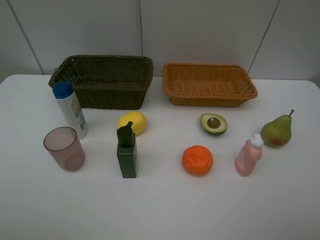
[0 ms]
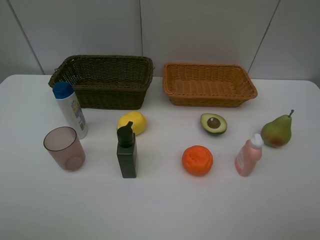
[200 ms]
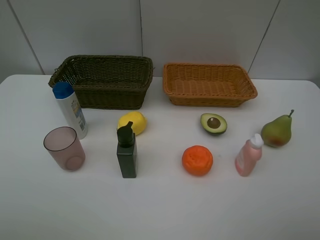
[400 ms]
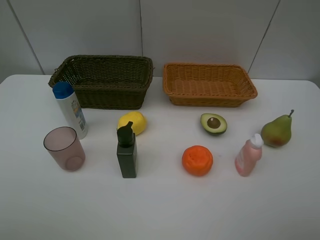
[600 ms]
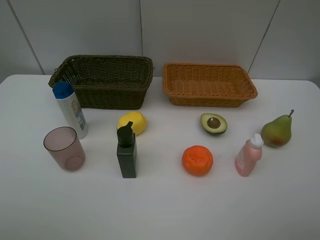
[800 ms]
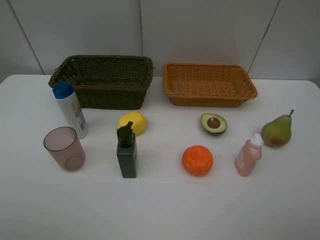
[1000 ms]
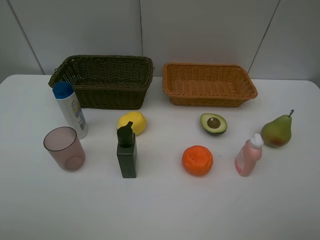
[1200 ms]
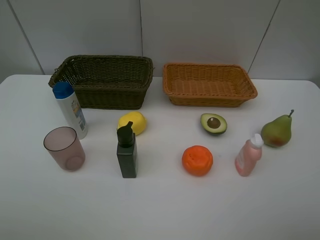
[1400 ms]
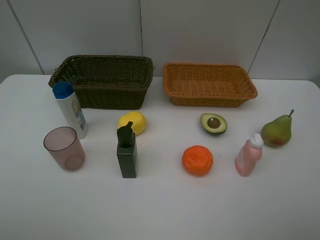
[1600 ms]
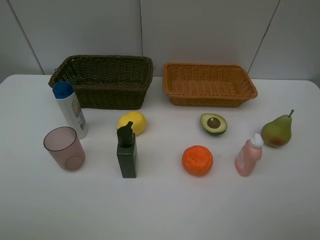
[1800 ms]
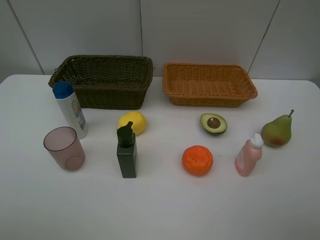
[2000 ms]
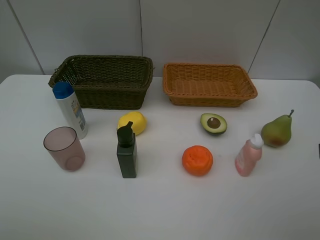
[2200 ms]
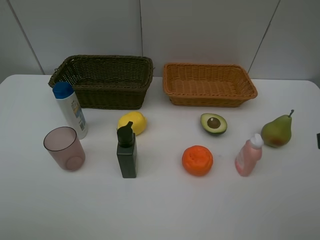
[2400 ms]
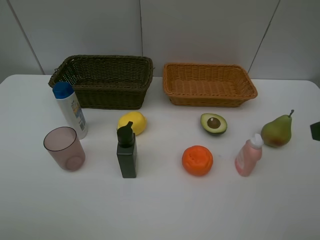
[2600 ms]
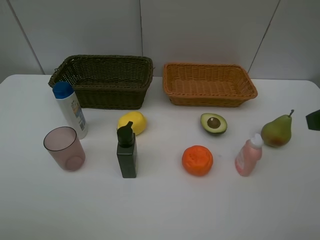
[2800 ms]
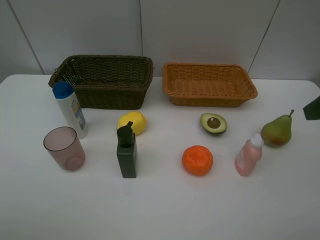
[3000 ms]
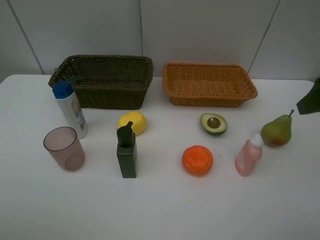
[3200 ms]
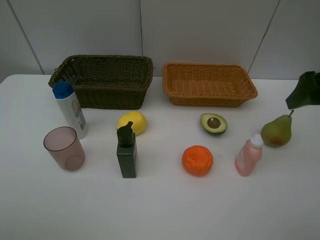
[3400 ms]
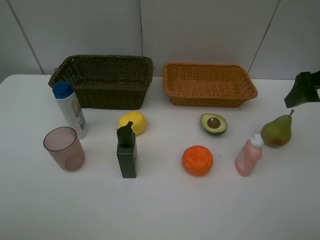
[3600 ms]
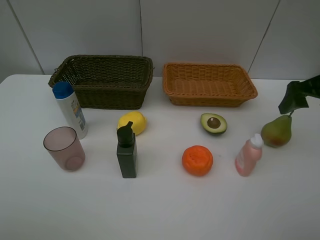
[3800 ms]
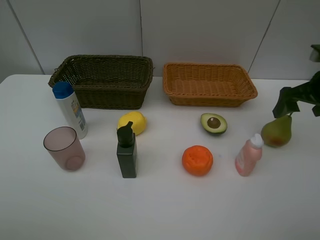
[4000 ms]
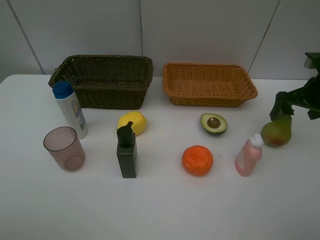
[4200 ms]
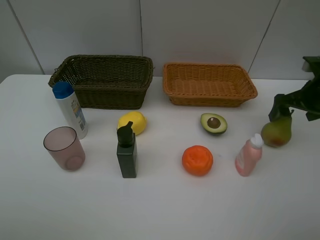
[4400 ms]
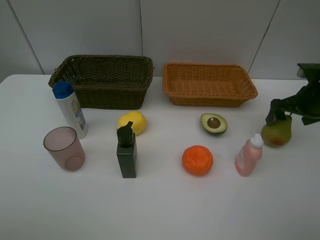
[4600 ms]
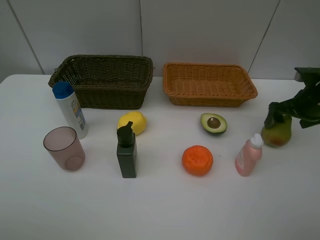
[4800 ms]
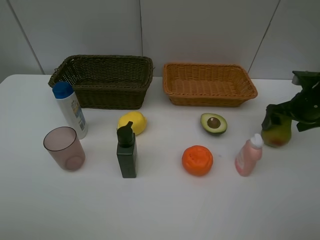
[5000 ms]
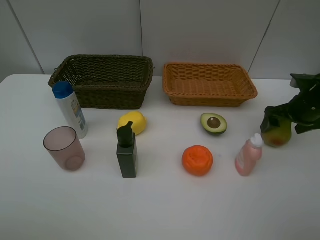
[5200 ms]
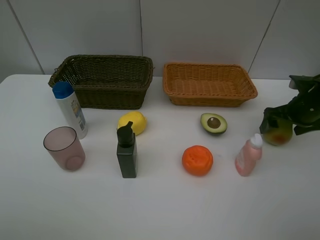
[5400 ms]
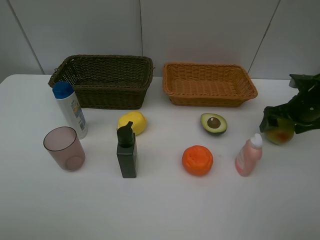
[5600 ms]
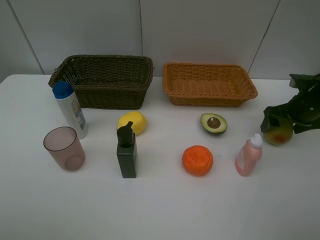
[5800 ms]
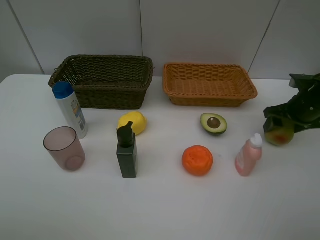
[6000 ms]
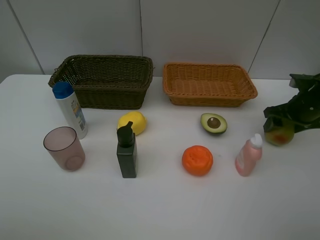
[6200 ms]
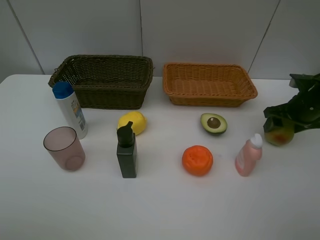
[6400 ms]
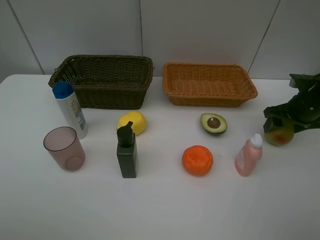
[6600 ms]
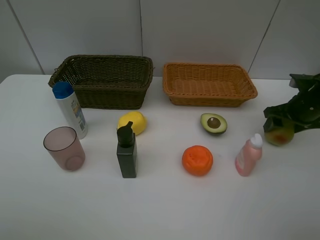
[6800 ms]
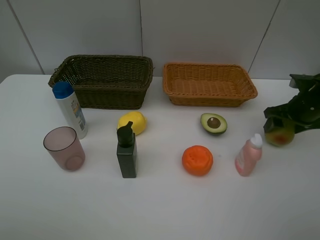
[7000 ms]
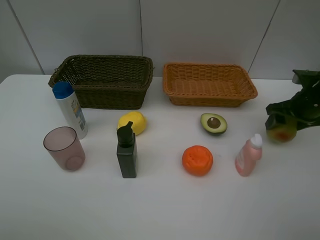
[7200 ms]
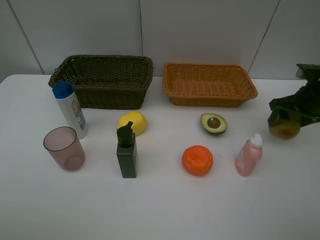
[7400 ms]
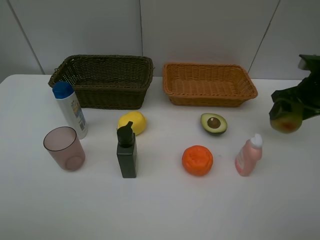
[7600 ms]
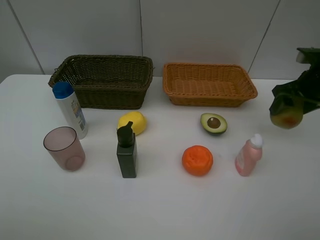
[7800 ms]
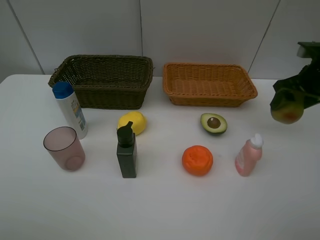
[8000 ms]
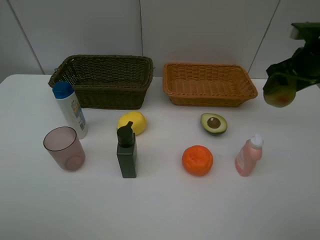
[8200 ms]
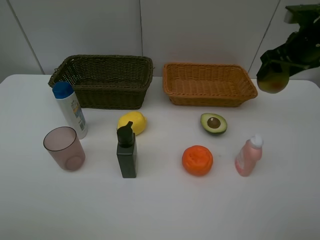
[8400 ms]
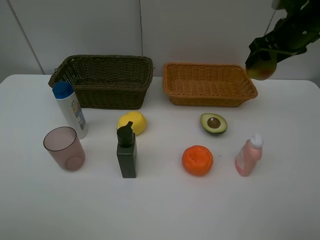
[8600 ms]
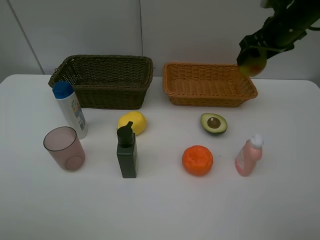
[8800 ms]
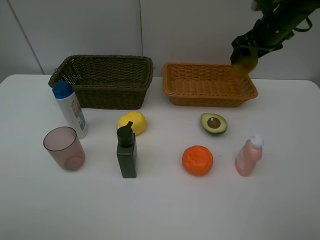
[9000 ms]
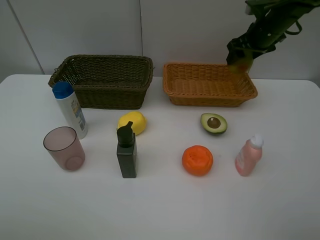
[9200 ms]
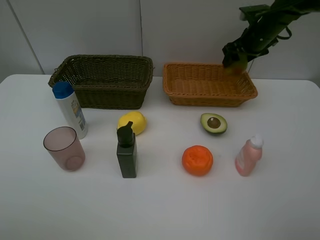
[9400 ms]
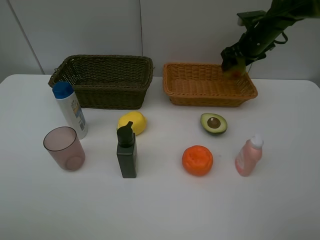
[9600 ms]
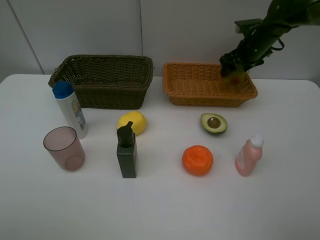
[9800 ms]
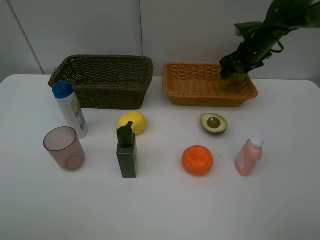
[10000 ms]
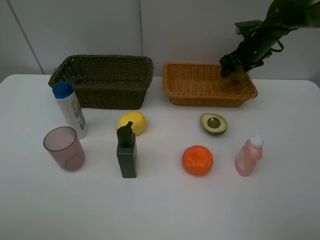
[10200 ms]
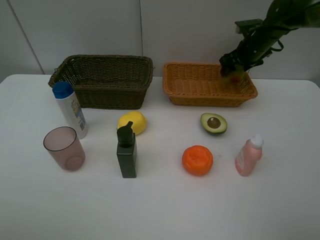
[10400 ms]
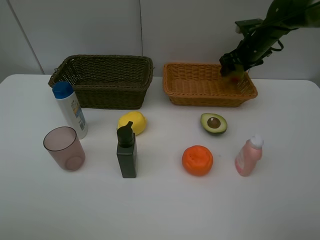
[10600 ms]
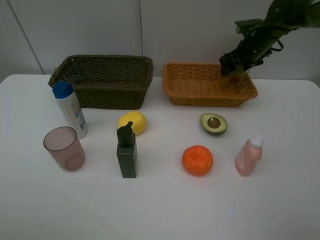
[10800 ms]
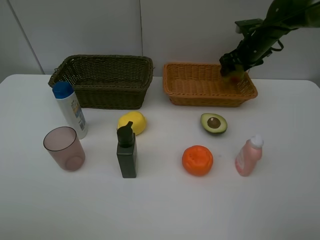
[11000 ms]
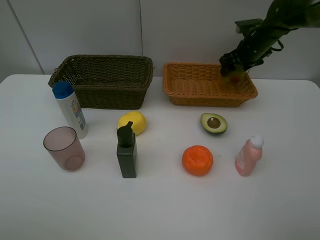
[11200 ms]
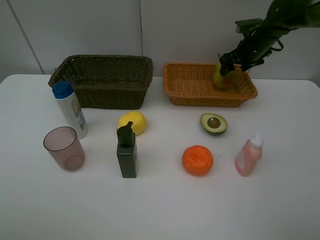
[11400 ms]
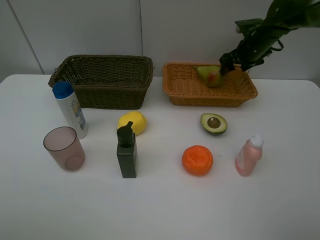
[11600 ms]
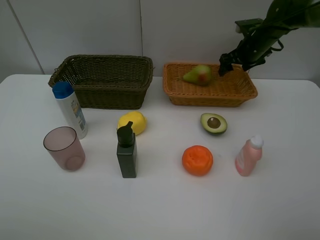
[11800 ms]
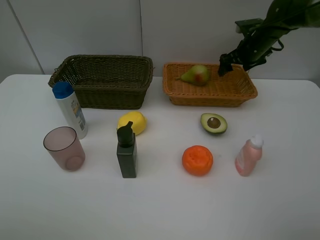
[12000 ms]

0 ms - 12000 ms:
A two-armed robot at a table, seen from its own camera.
Task of the whole recording: Place multiple objects separately in different baskets.
Step, 0 ms - 7200 ms: Pick up the pear with right gripper.
Step, 7400 ms - 11600 ms: Place the pear in the light basket with right gripper.
3000 ms - 4400 ms: The right gripper travels forward and downward by about 20 cm.
4400 ms - 6000 ms: The right gripper closes up.
6000 ms - 7600 ms: The right gripper heads upward, covering some 5 cm.
7600 ms - 9000 ms: The right gripper goes about 15 cm forward, to the left and upward.
9000 ms - 10400 ms: The right gripper is displaced downward and forward by approximately 10 cm.
10400 ms - 12000 ms: Both grippers stay about where they are.

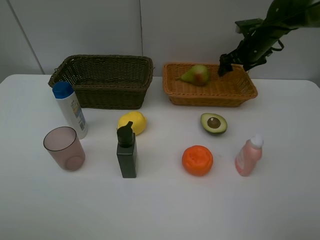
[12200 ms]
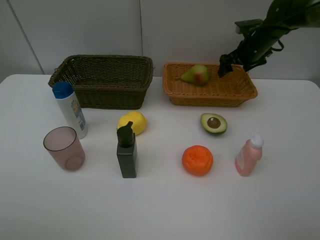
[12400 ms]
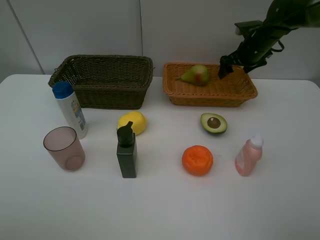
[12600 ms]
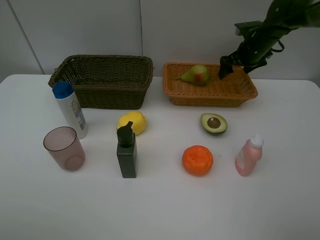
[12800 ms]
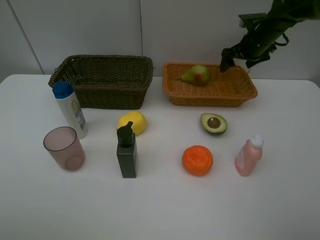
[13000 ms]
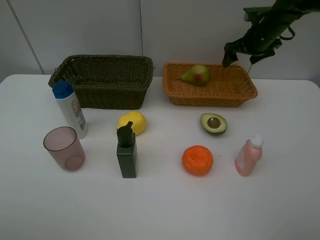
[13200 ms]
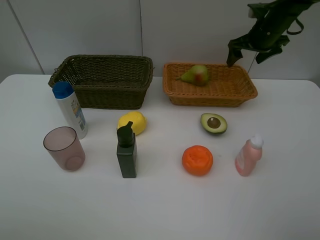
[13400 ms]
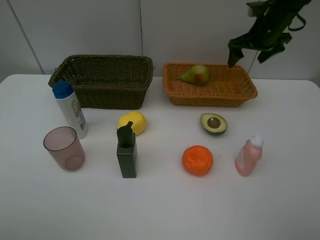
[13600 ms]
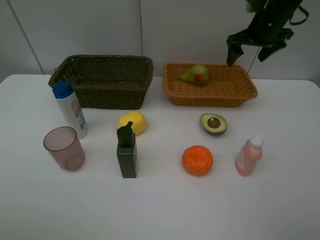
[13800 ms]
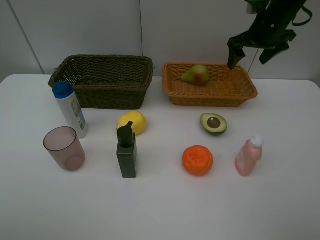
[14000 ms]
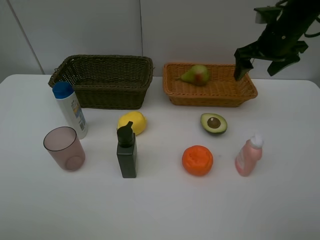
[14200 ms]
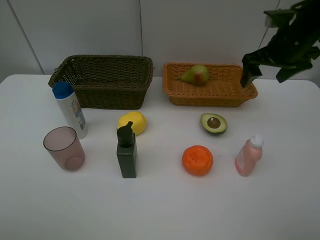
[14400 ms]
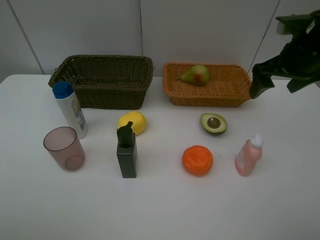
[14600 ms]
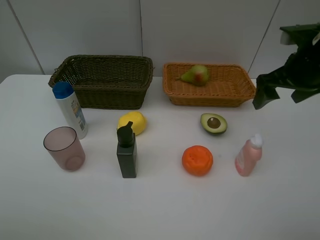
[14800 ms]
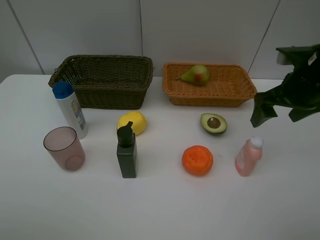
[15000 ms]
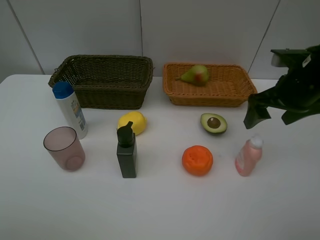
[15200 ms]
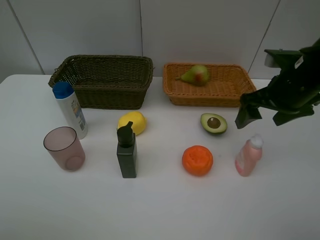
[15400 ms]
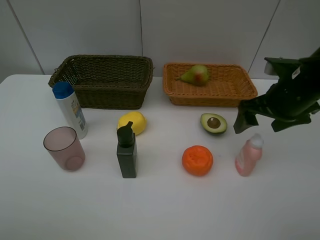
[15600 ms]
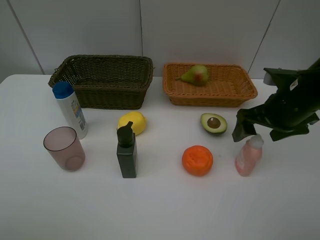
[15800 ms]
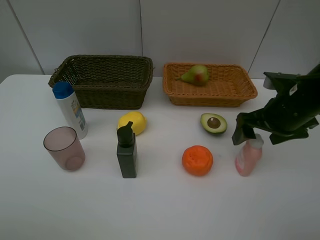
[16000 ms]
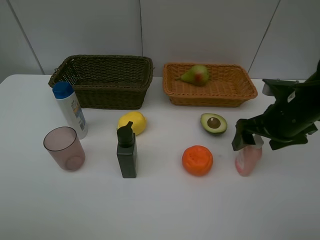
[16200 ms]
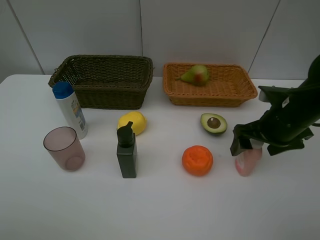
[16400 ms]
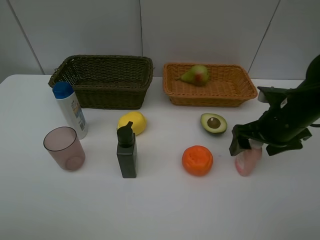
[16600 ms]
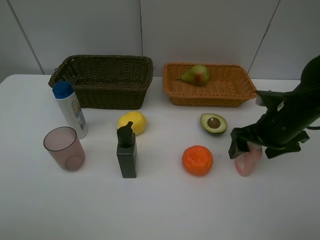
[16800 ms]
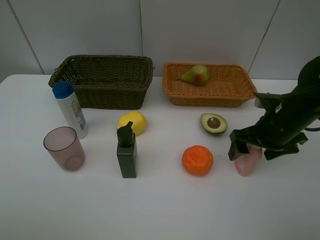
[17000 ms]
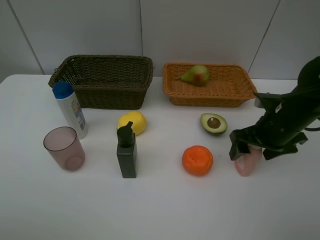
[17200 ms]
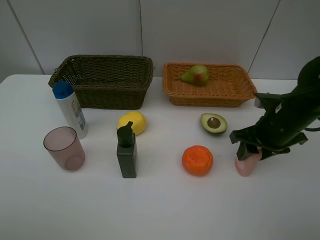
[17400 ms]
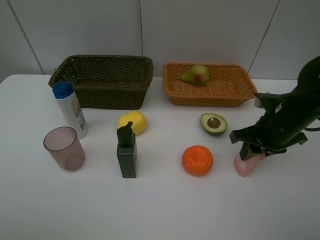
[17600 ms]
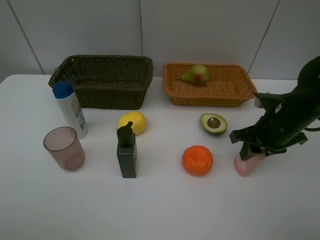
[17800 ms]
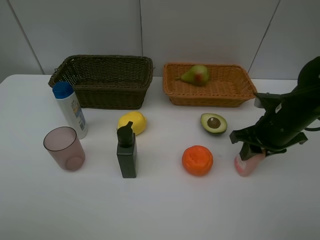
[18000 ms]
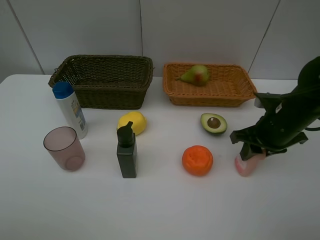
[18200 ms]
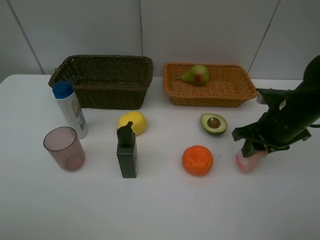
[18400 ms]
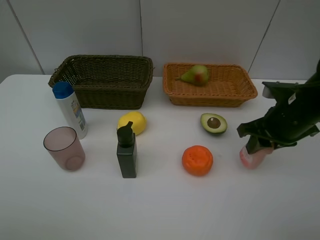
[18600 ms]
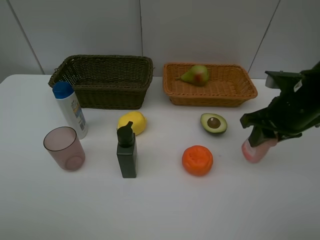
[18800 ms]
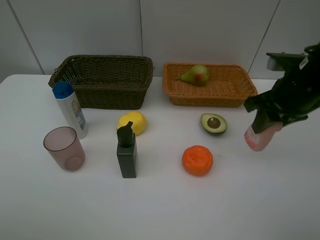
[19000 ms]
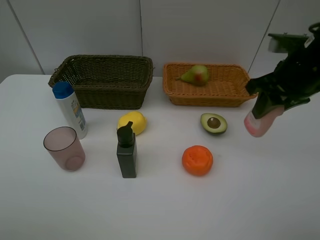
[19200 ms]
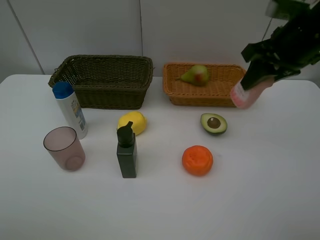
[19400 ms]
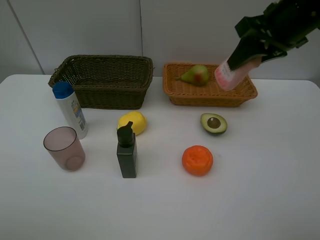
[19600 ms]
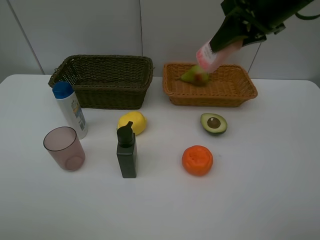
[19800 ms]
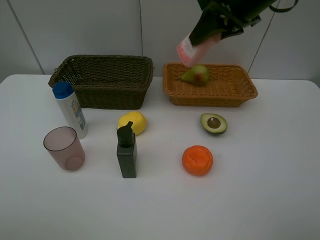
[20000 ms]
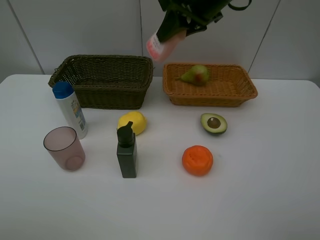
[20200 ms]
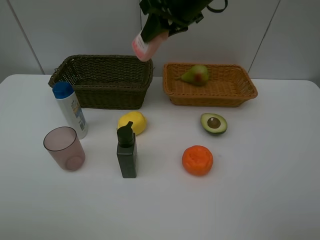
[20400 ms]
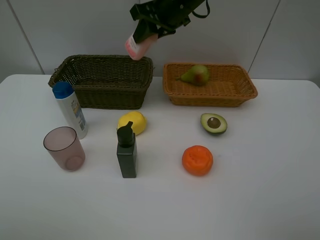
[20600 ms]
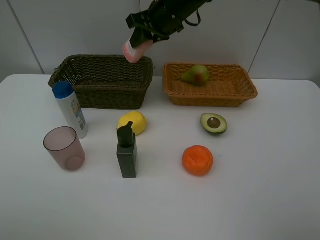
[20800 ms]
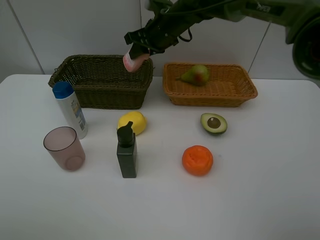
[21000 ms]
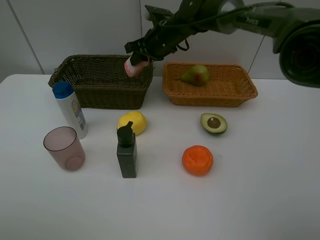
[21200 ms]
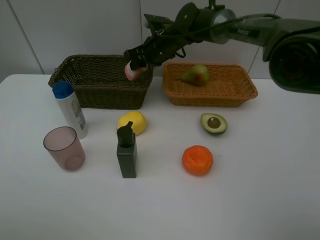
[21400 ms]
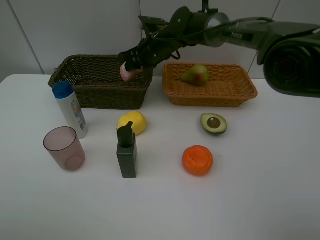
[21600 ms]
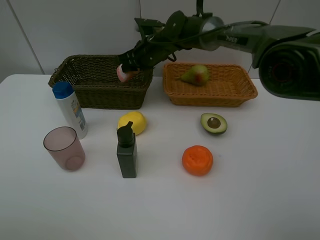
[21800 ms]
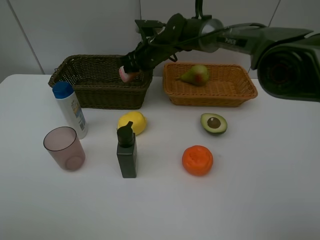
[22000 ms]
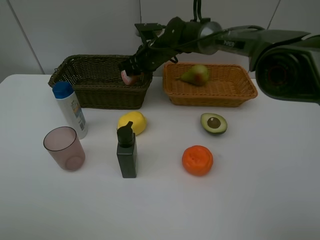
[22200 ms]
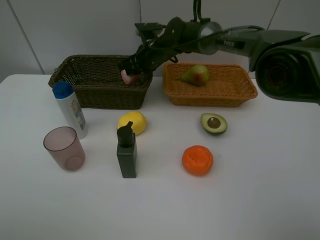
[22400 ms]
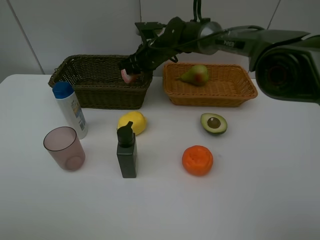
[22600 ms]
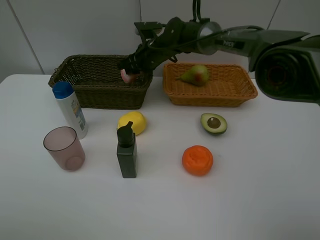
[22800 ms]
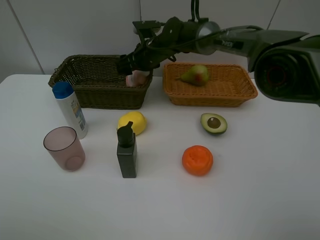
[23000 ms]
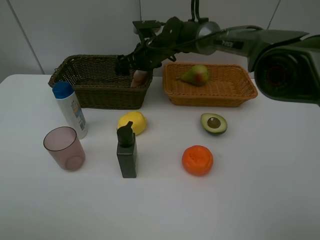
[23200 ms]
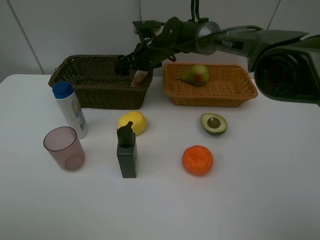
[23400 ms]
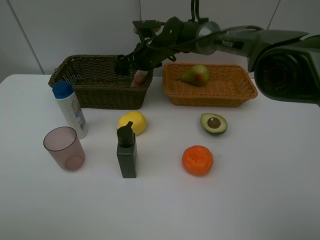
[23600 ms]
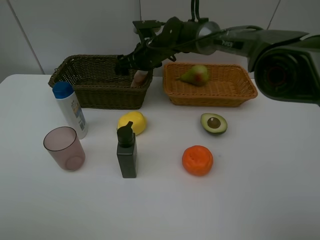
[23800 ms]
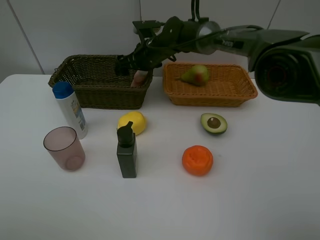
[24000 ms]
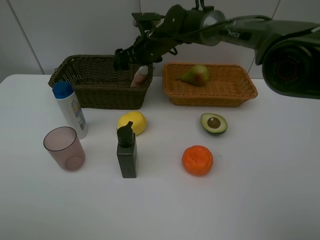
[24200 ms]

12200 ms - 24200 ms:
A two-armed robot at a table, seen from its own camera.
Task of the whole recording: Place multiple objects separately in different baskets.
Step, 12200 ms - 18400 ms: Pick up the laundry detergent with right gripper.
12200 ms - 13800 ms: The right gripper is displaced upward by approximately 10 cm.
13800 ms - 15200 ms: The right gripper goes approximately 20 cm backward.
15200 ms - 16600 ms: The right gripper moves downward, roughly 5 cm.
16600 ms - 18200 ms: The right gripper closes its fingers.
18200 ms - 19800 ms: The right gripper is displaced upward by about 20 cm.
19800 ms - 21200 ms: The right gripper goes about 25 cm to the left, forward and downward.
21200 ms - 22600 ms: The right gripper shifts by about 5 cm.
22600 ms - 24200 ms: The right gripper opens up.
